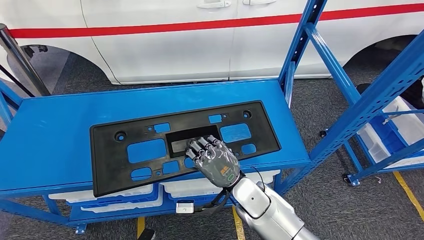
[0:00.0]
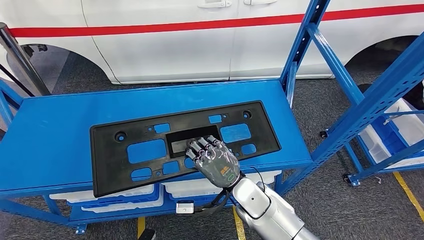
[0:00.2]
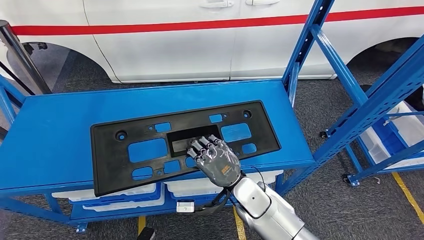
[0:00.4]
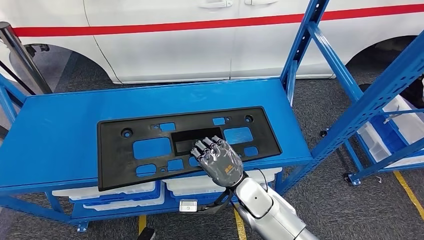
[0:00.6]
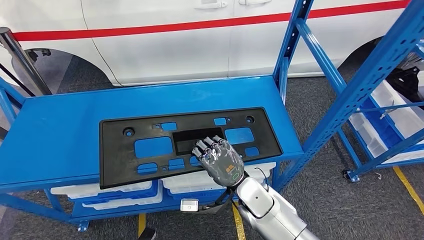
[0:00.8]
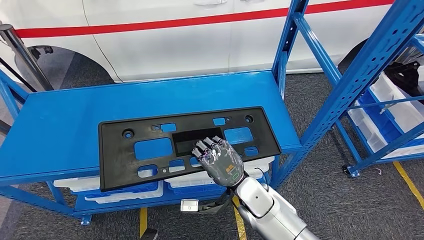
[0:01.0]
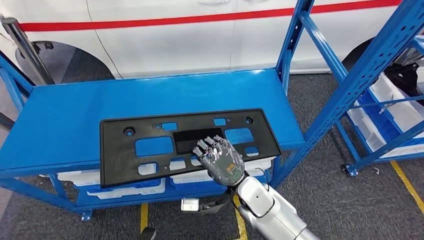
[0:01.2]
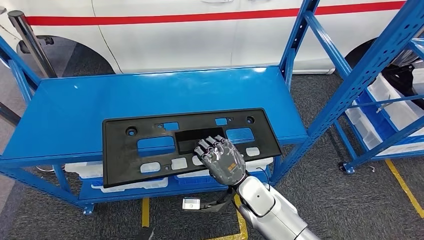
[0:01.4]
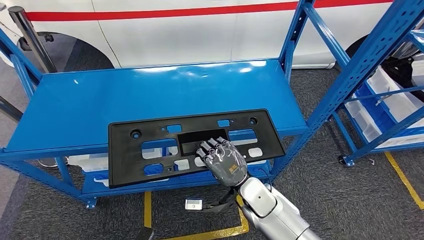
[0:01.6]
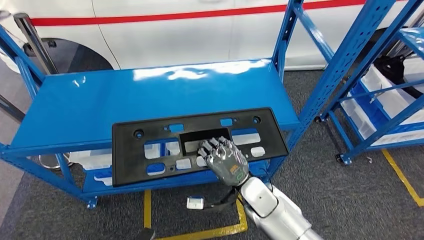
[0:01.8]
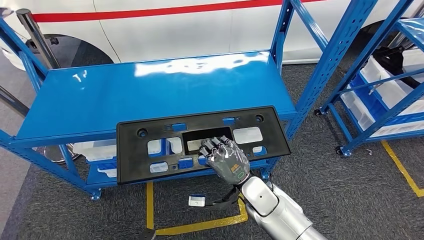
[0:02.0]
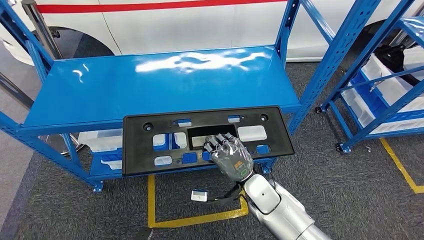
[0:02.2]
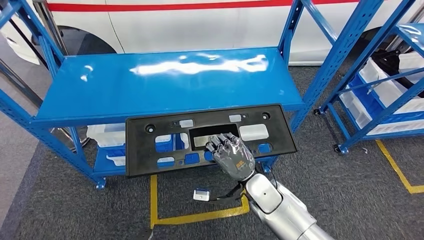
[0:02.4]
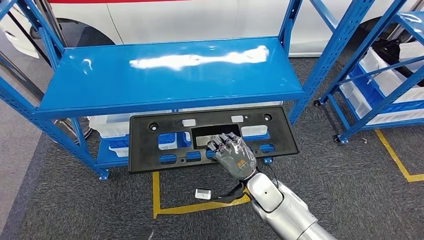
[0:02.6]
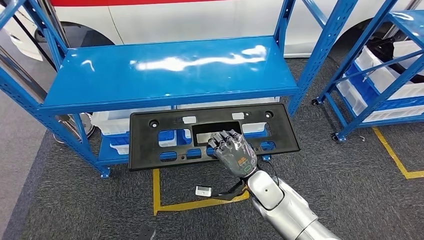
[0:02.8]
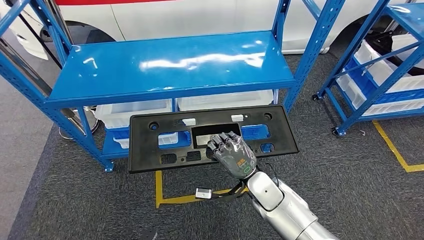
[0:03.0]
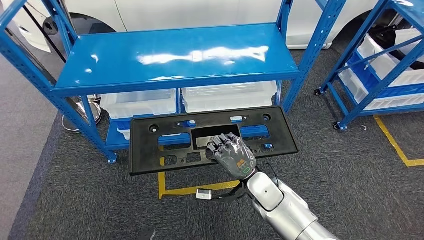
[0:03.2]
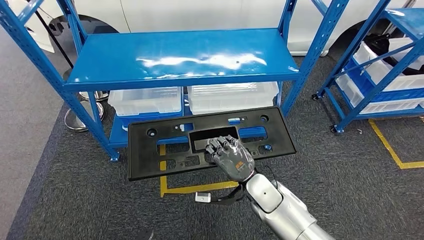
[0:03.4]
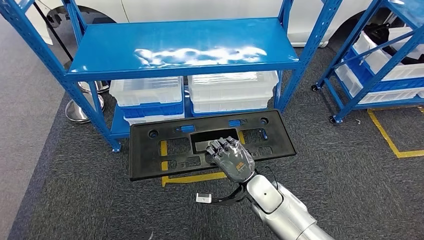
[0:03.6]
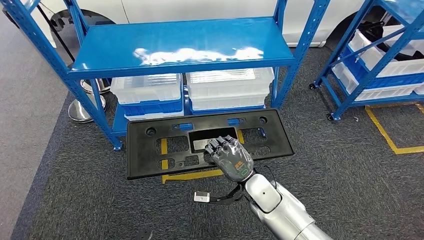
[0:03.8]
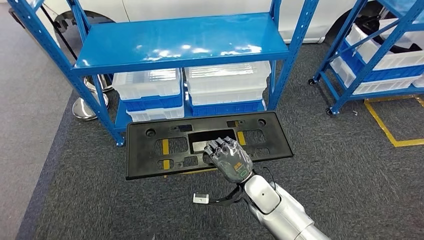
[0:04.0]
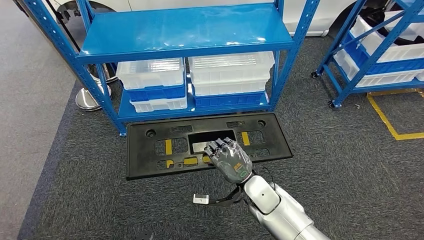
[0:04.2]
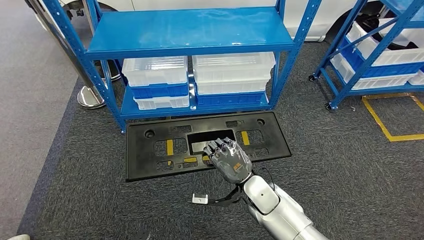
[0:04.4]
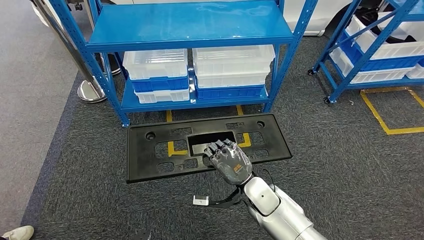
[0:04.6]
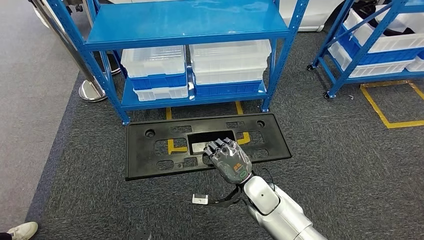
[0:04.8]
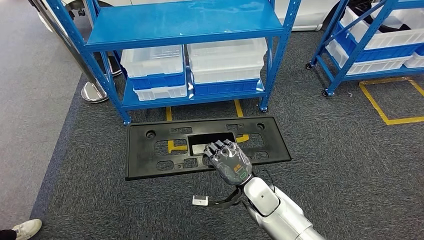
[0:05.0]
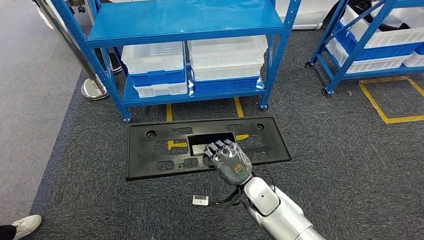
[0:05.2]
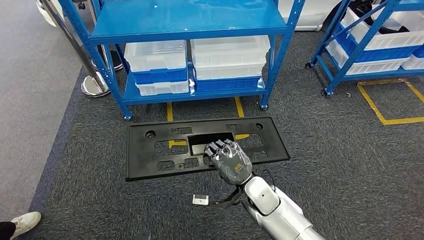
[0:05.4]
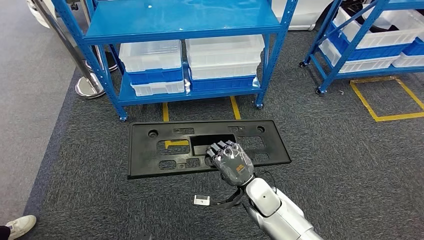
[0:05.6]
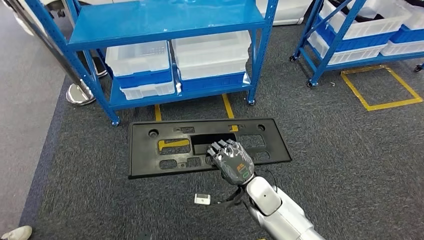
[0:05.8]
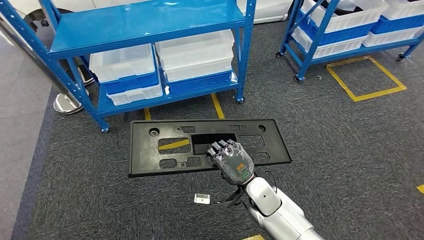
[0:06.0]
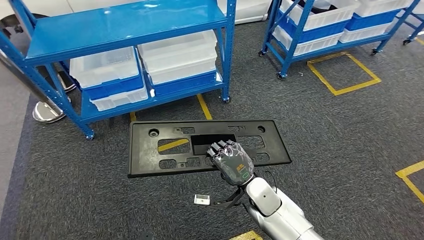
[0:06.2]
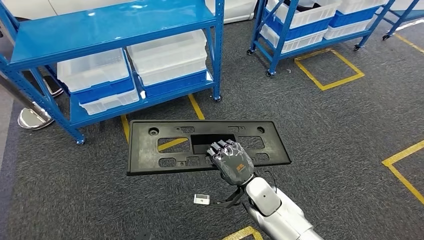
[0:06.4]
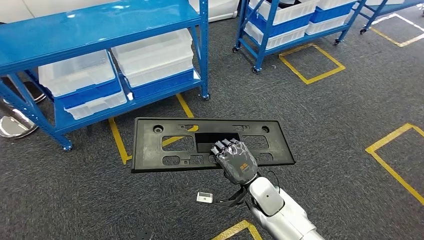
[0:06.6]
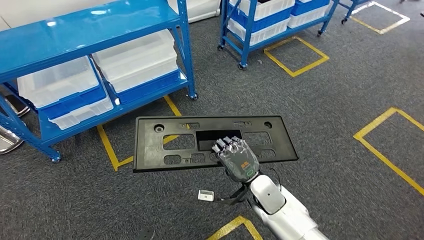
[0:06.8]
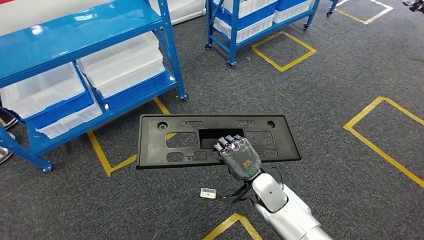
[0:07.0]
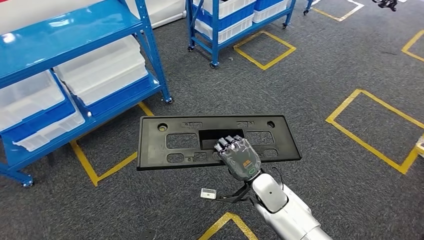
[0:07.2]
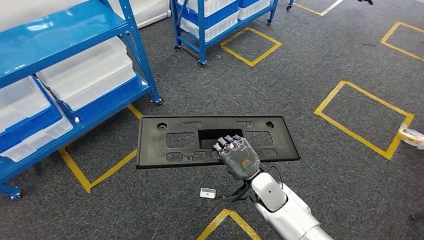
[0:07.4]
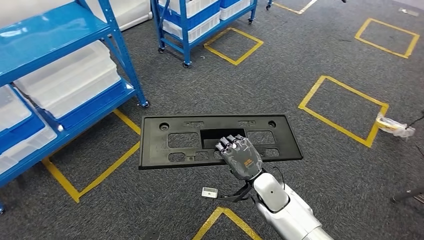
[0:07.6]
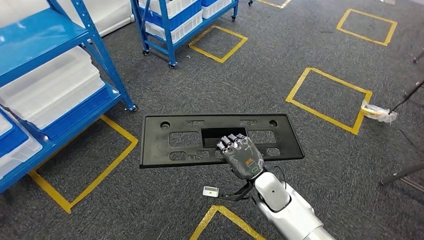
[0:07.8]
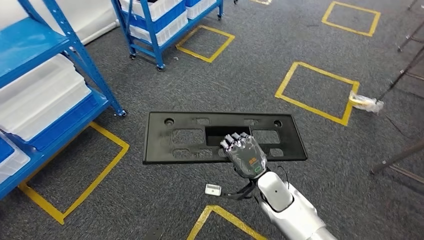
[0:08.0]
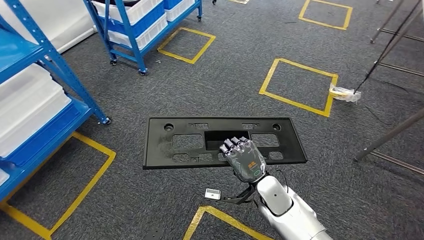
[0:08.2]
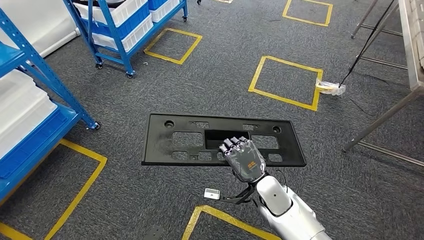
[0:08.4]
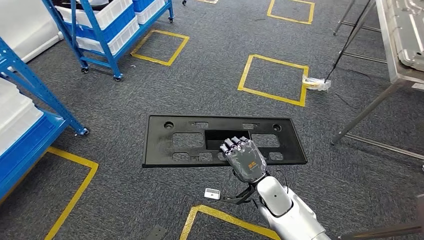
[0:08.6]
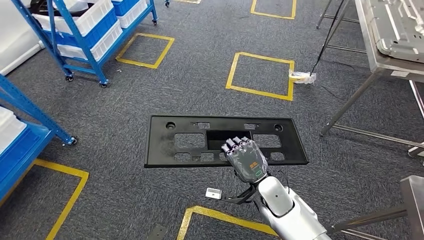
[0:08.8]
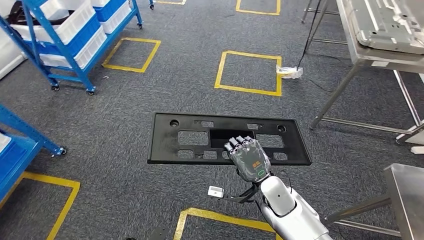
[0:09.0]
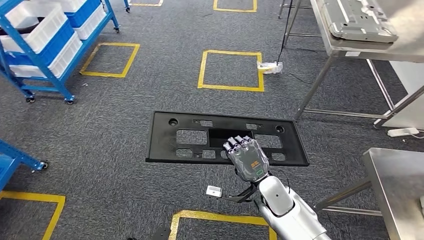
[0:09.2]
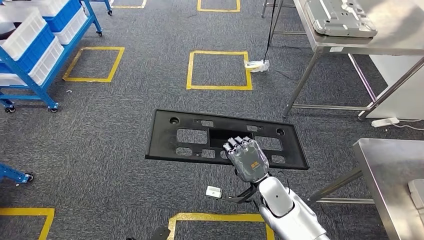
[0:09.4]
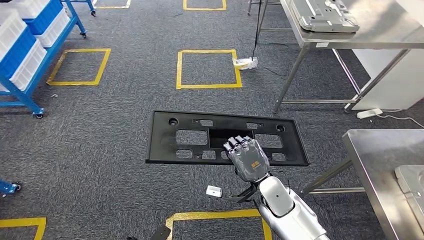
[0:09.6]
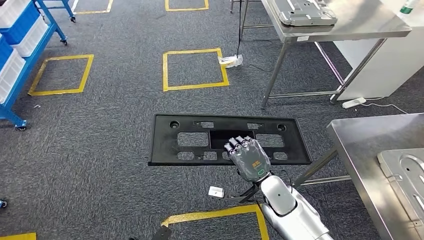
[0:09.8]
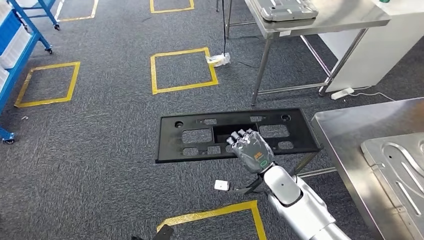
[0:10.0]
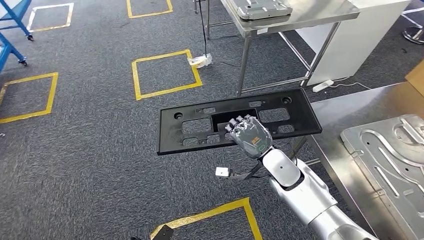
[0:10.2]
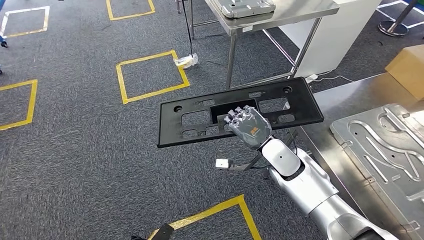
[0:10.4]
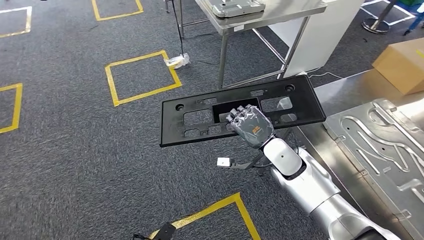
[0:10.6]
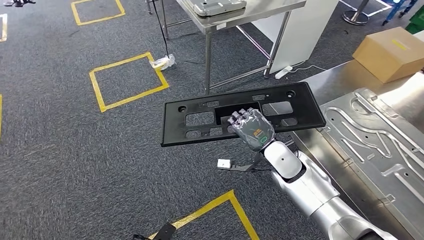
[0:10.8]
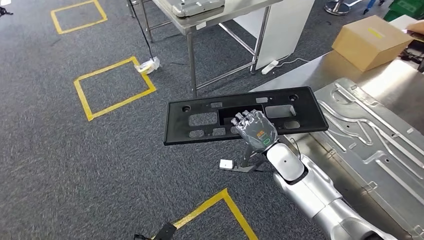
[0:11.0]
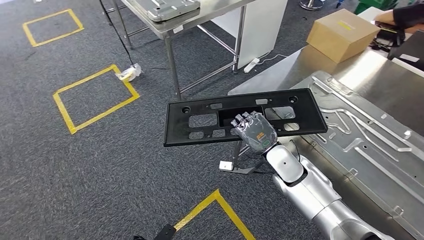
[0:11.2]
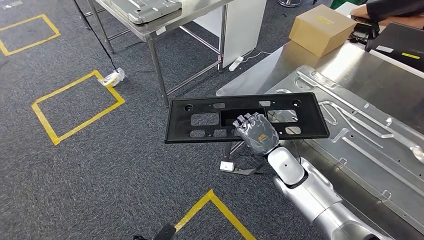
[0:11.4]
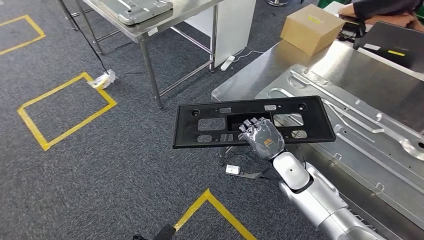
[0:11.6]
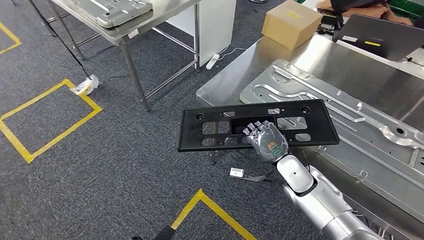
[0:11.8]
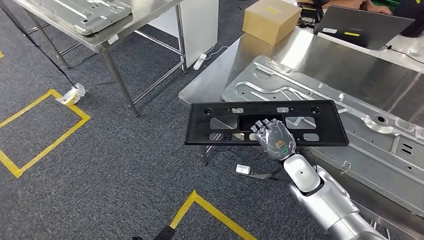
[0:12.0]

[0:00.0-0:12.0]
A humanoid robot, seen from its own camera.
Step, 0:00.6 to 0:10.2: Move the large material to the workbench.

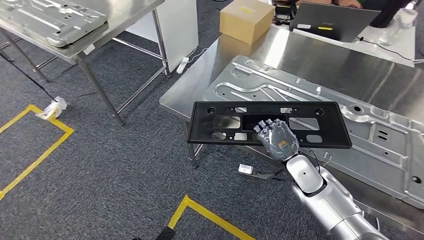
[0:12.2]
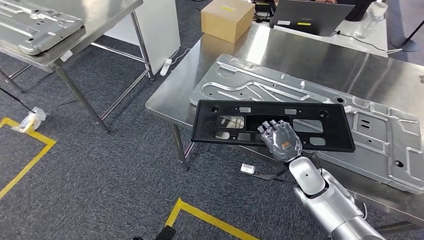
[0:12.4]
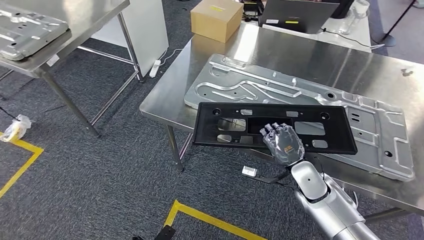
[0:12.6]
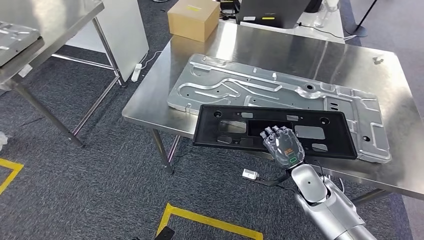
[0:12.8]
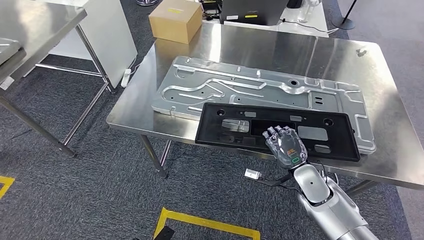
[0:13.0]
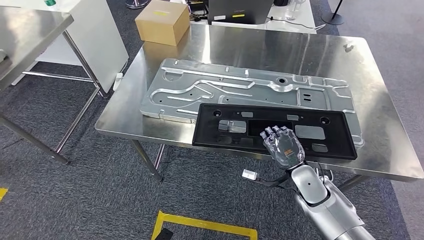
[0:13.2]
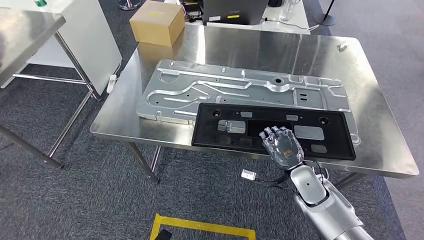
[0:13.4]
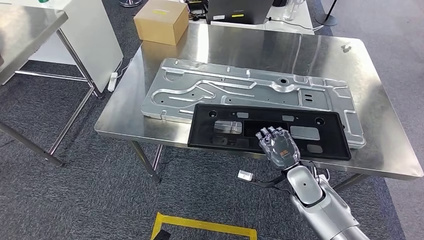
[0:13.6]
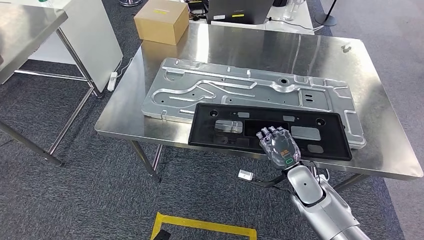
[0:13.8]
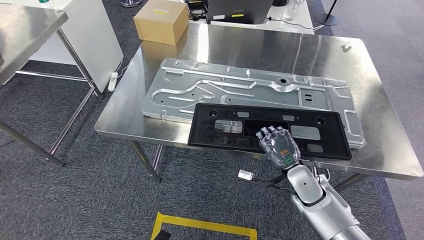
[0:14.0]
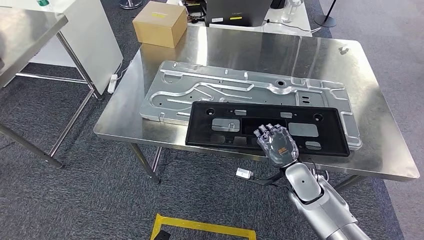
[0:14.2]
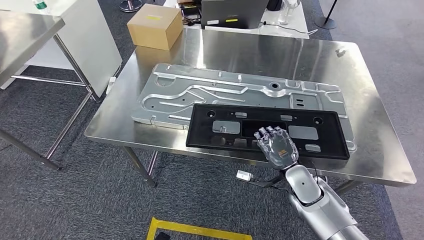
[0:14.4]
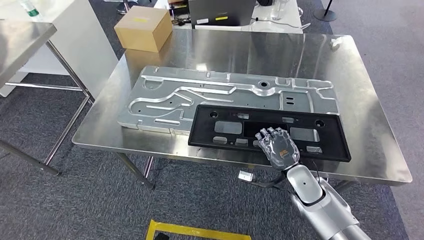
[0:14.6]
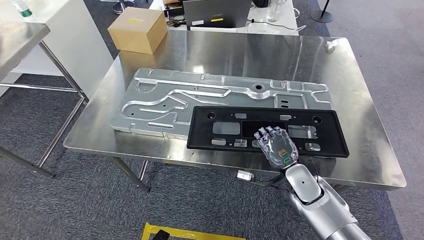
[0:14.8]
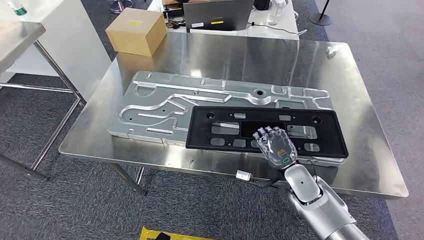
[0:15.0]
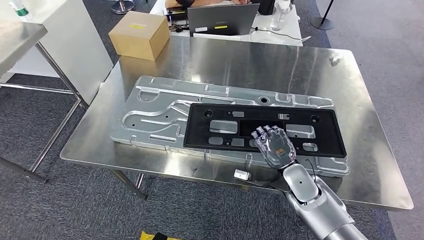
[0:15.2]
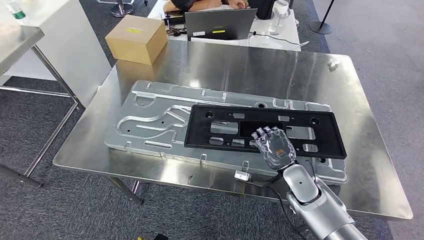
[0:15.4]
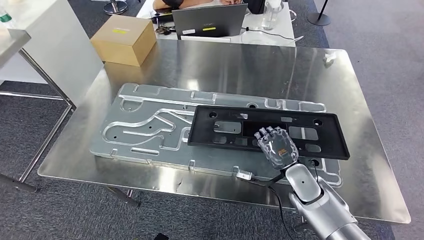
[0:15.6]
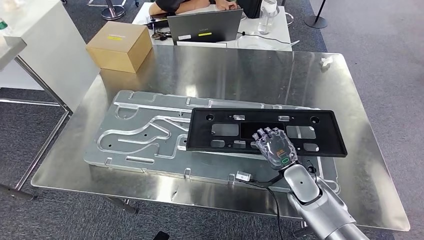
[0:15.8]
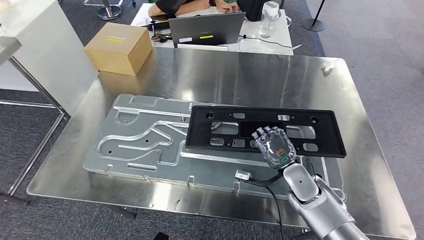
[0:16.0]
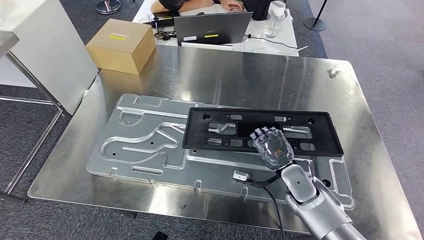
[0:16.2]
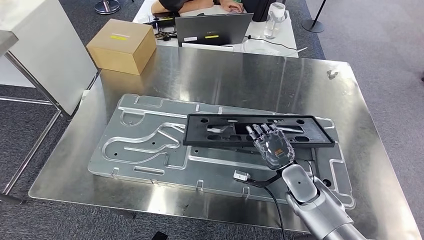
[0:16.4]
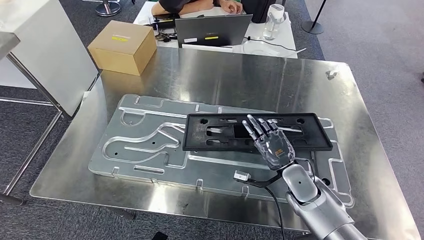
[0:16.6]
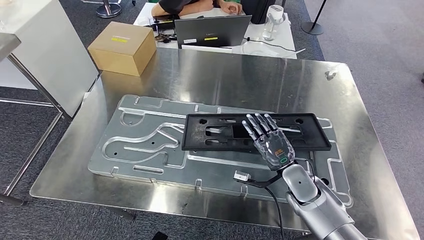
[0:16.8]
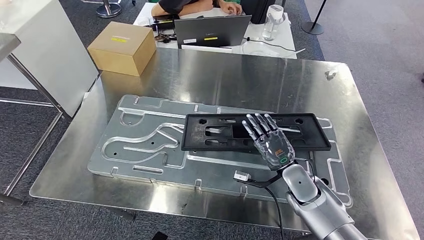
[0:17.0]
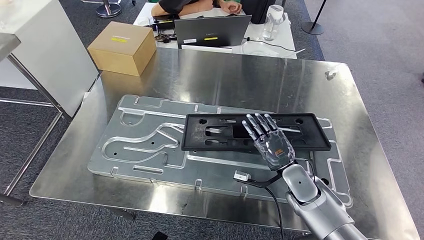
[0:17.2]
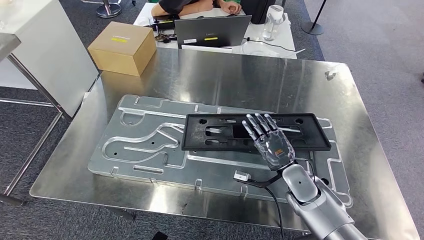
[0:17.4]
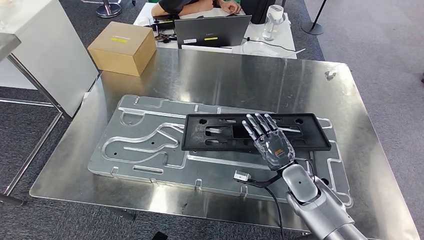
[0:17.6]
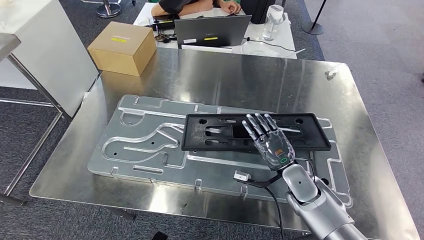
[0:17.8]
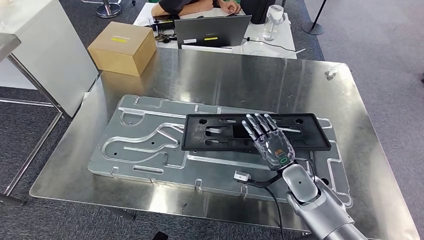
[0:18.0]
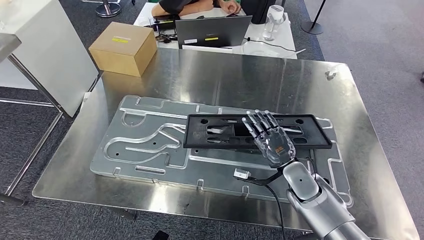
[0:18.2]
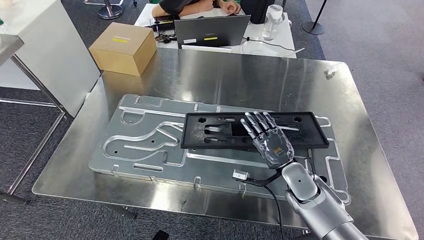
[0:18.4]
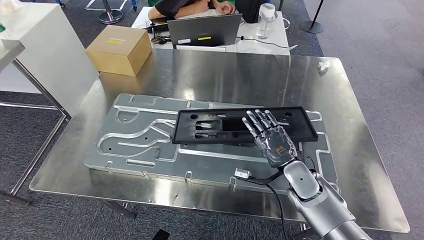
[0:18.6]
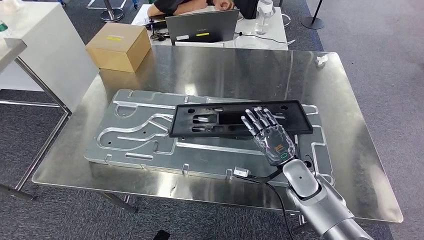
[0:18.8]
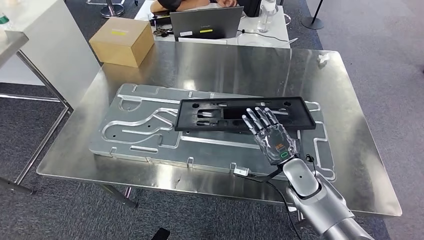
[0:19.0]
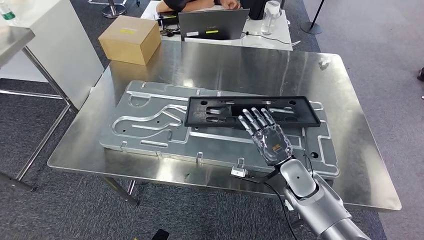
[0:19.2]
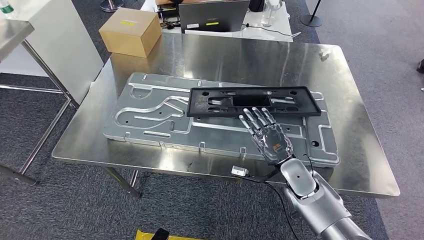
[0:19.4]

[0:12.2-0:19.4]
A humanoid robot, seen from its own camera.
Step, 0:12.2 to 0:15.8: Insert the large material into the corresponding slot on the workbench.
0:16.6 to 0:18.0: Both hands stay put.
